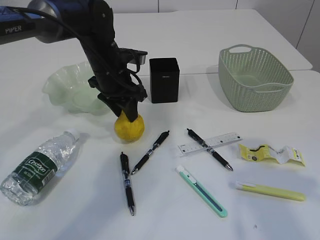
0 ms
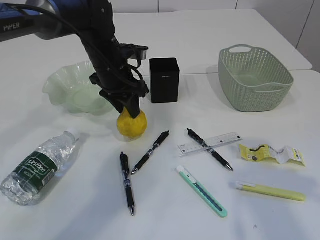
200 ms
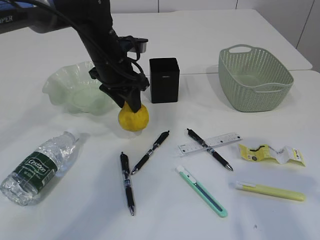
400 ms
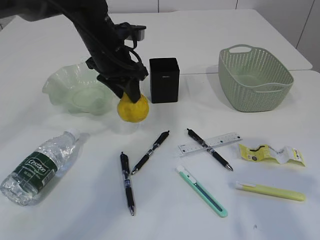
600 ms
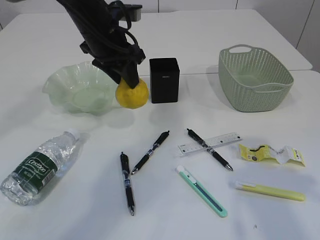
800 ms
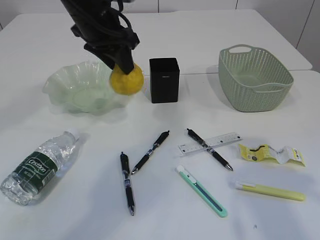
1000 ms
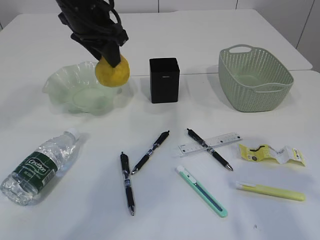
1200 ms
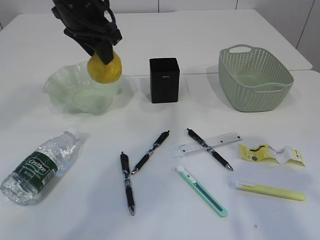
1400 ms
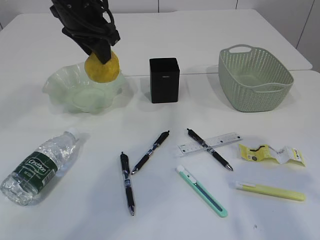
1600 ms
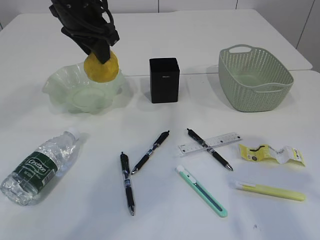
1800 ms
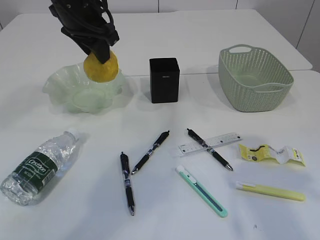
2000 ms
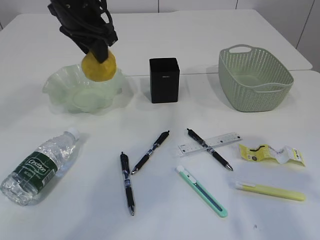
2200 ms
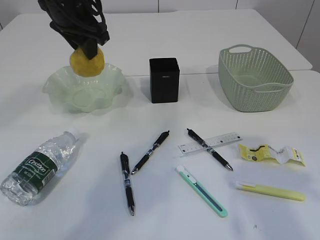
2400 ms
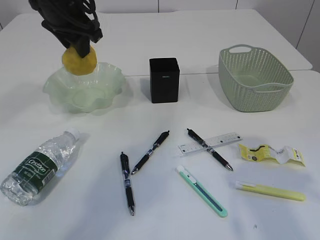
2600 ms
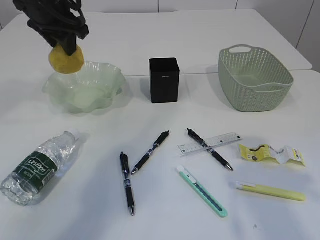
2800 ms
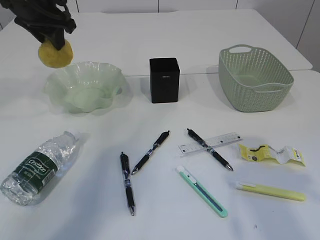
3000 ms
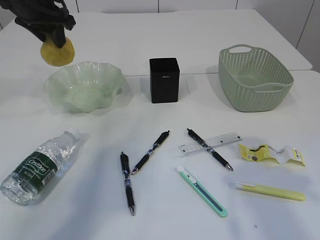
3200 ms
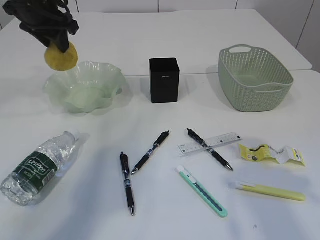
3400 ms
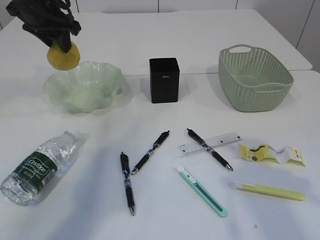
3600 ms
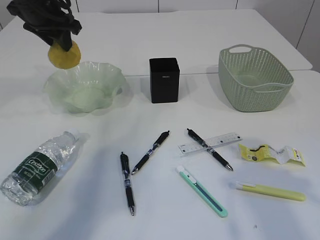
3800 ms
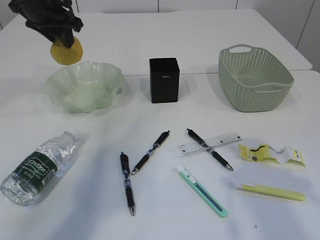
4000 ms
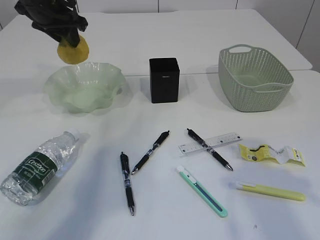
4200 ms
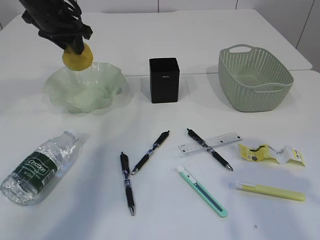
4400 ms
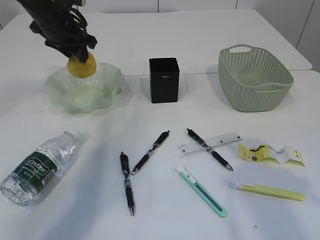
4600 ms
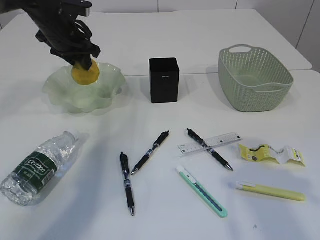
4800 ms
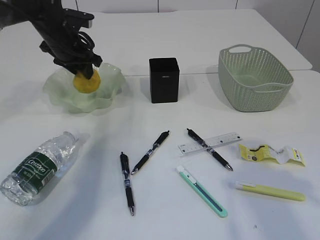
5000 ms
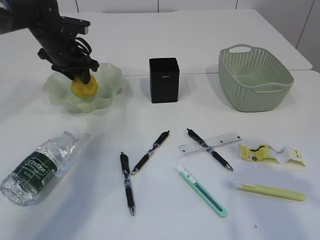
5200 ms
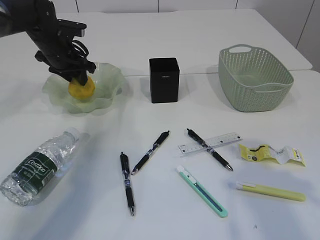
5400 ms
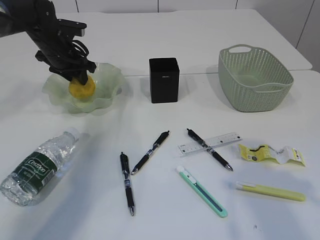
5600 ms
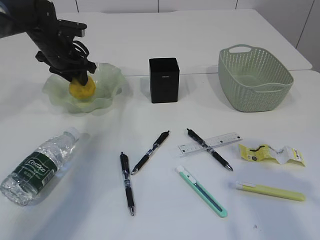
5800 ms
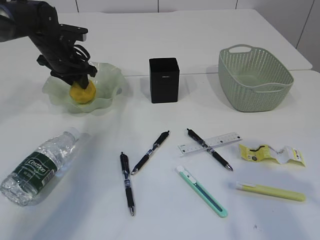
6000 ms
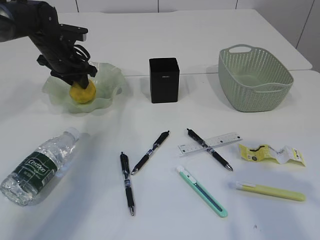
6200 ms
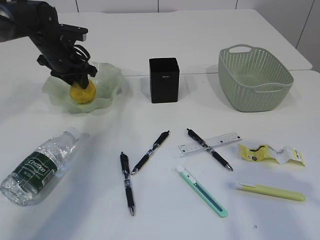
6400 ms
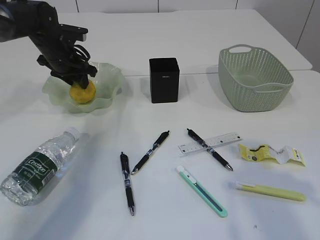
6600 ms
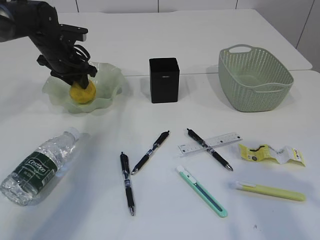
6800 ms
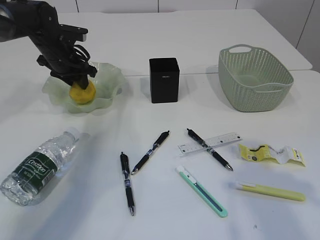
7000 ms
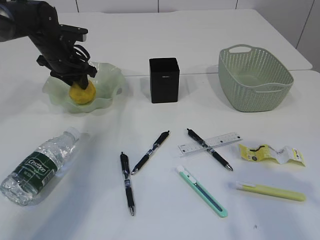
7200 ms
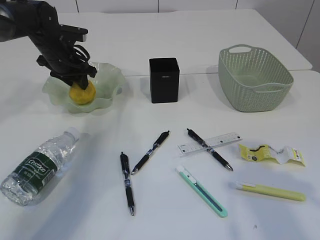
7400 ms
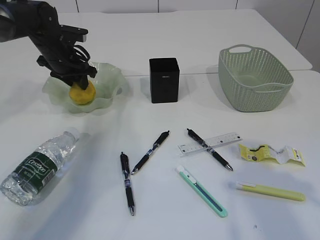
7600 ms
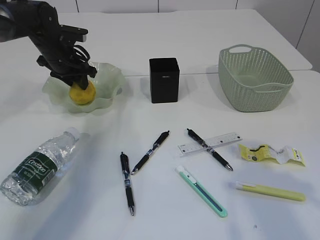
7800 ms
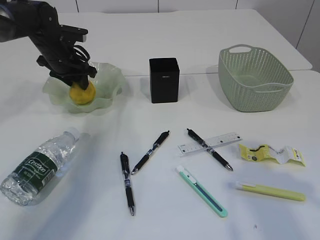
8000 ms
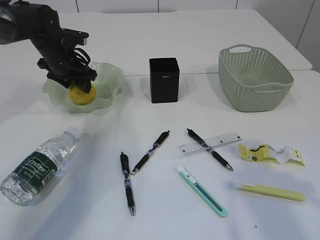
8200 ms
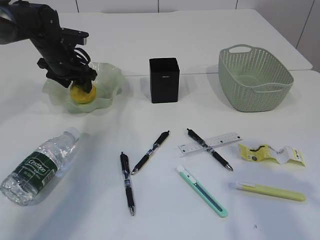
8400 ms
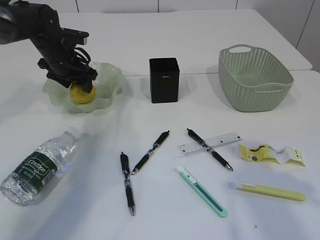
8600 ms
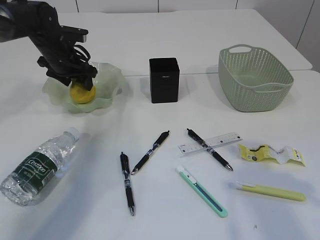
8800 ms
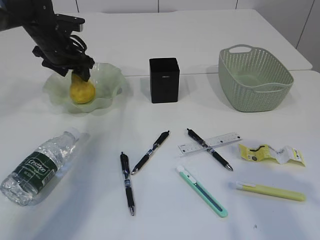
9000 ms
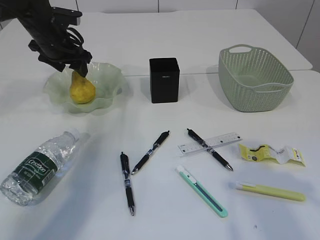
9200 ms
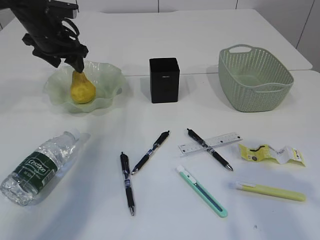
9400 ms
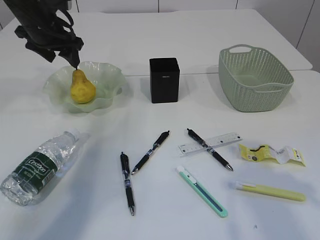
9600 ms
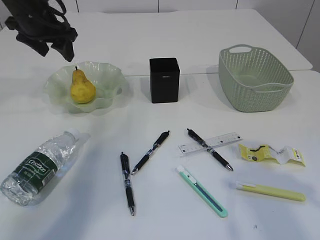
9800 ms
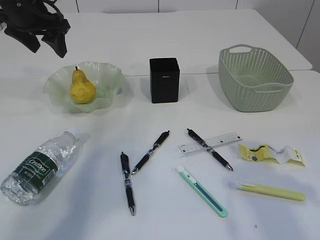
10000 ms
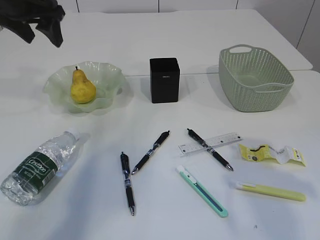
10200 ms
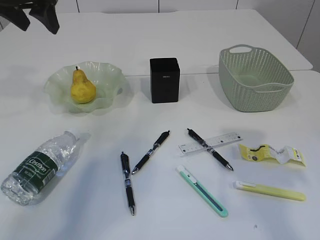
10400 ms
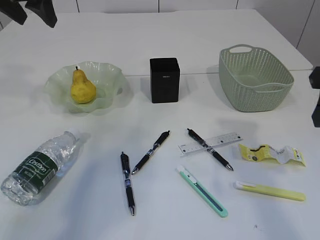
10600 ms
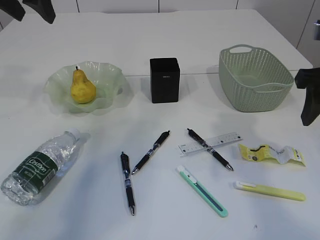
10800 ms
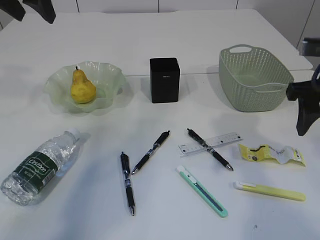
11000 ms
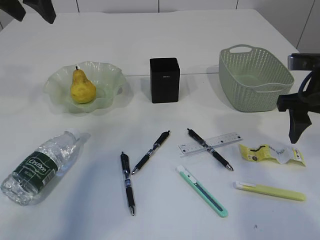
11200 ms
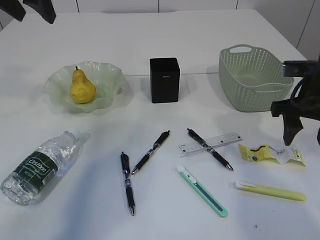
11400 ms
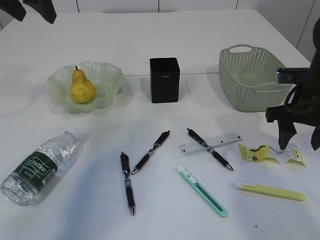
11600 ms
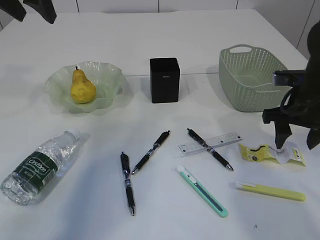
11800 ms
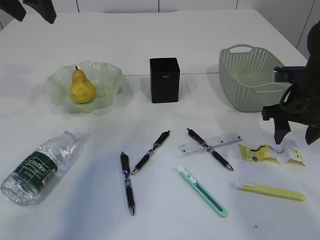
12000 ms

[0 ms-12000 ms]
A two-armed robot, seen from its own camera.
Step, 600 ms to 9600 ms: Place the pear in the plate.
0 ms to 1600 ms: The left gripper moves upward, roughly 15 cm.
1600 ms to 3000 ms: The left gripper is displaced to the left by roughly 10 cm.
3000 ms to 4400 ms: There are only small adjustments of the grippers.
4400 ms to 6000 ms: The left gripper goes about 10 cm downward.
6000 ms to 7600 ms: Both grippers stay put.
7600 ms to 9000 ms: The left gripper opens up.
9000 ms to 10400 ms: The left gripper shifts approximately 20 cm upward and backward.
10400 ms to 12000 ms: The right gripper moves forward and downward, some 20 cm.

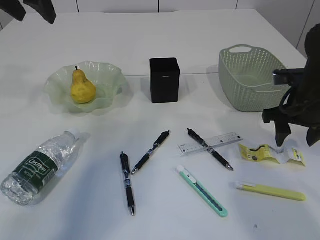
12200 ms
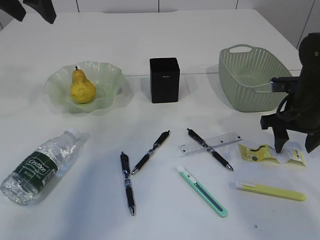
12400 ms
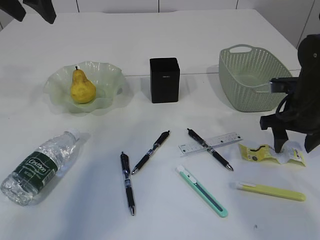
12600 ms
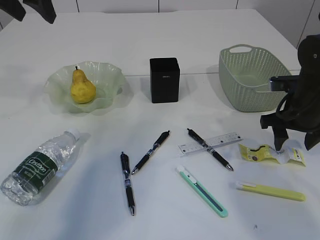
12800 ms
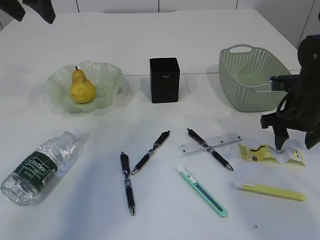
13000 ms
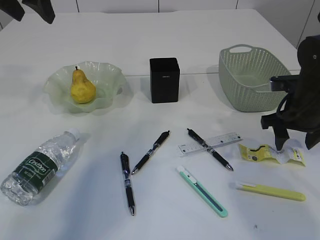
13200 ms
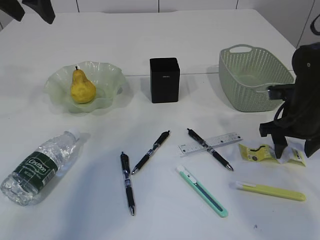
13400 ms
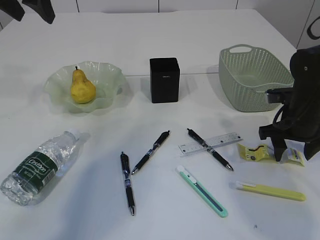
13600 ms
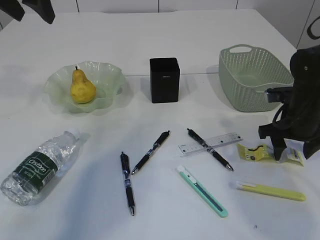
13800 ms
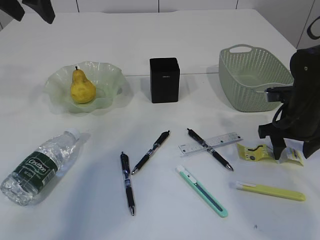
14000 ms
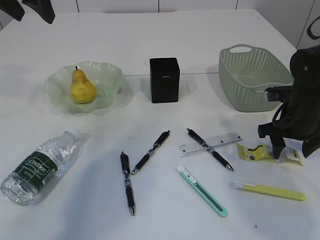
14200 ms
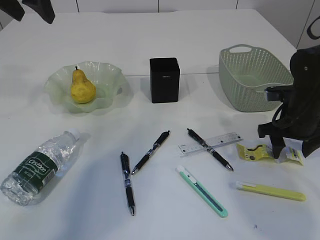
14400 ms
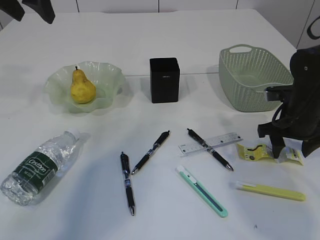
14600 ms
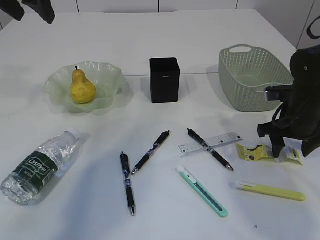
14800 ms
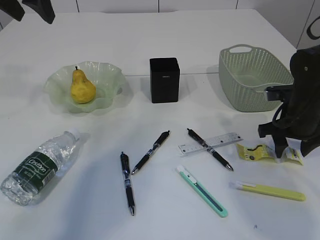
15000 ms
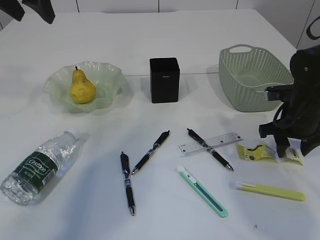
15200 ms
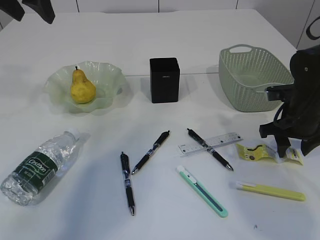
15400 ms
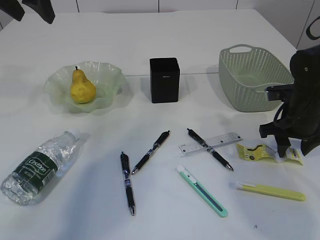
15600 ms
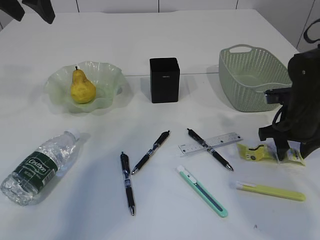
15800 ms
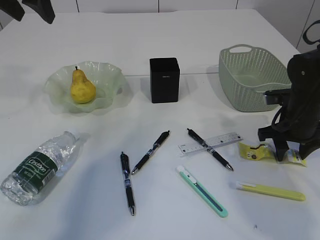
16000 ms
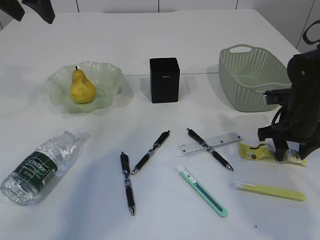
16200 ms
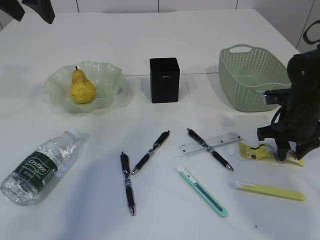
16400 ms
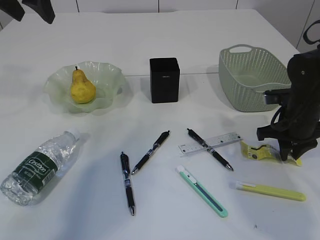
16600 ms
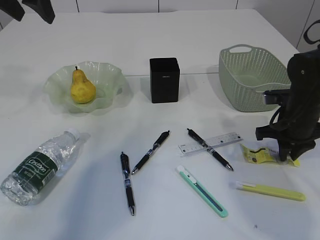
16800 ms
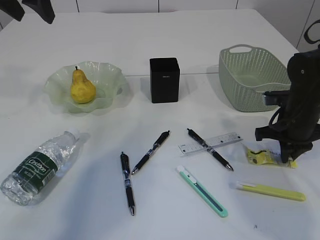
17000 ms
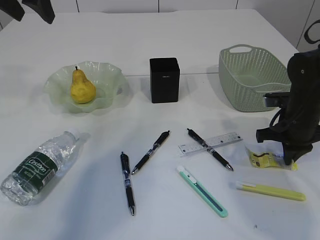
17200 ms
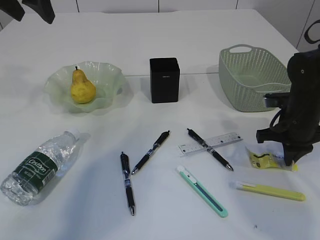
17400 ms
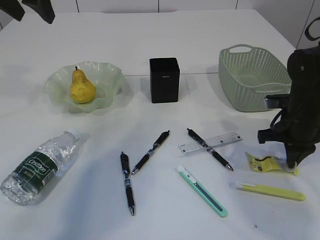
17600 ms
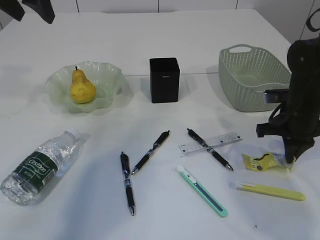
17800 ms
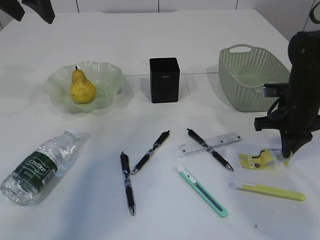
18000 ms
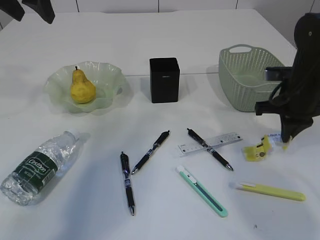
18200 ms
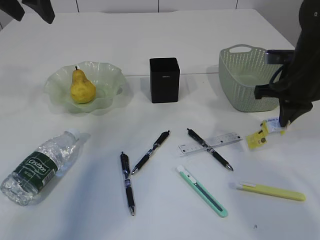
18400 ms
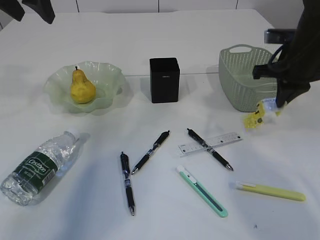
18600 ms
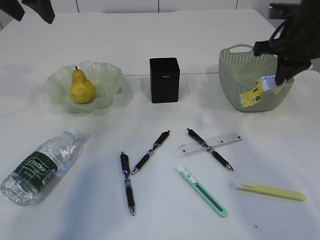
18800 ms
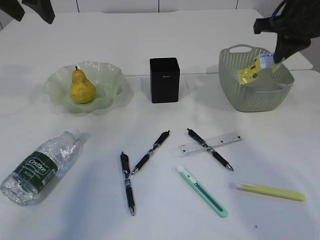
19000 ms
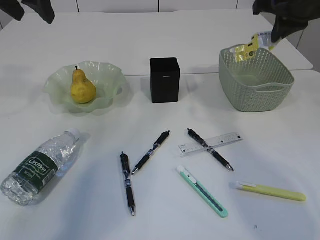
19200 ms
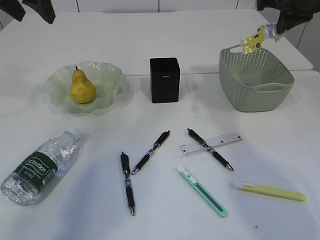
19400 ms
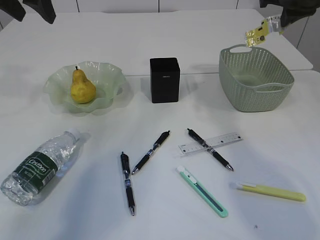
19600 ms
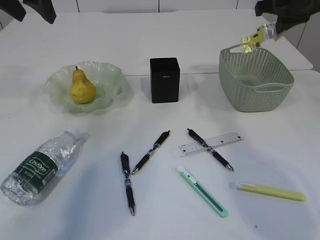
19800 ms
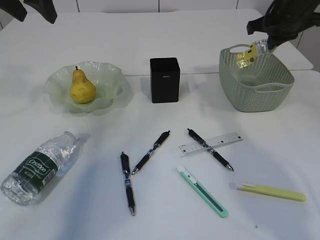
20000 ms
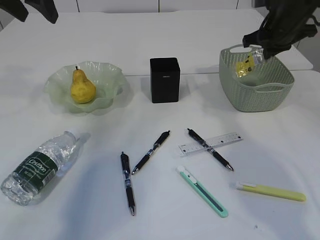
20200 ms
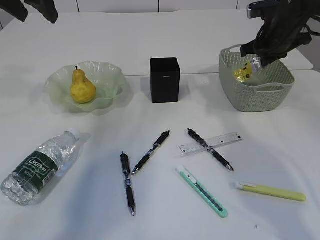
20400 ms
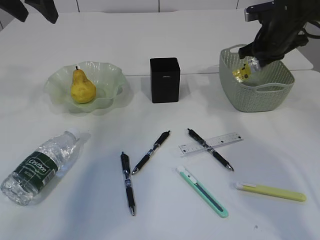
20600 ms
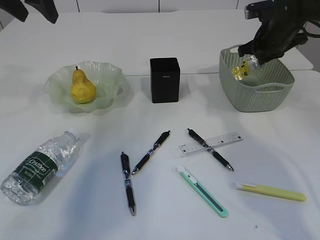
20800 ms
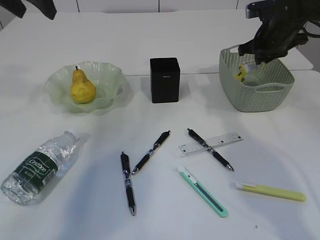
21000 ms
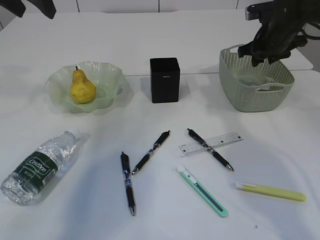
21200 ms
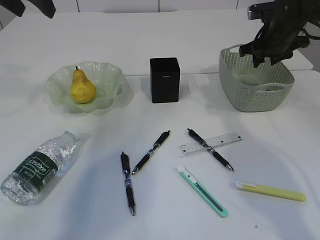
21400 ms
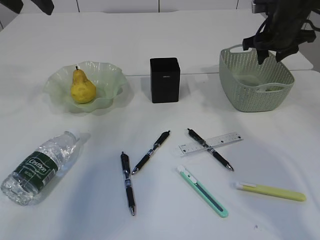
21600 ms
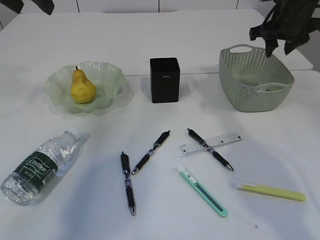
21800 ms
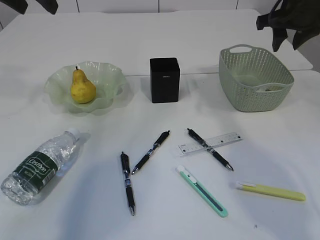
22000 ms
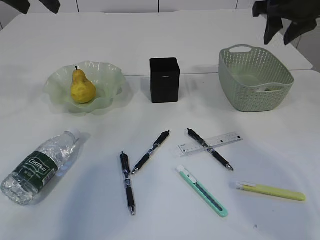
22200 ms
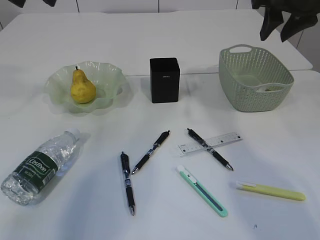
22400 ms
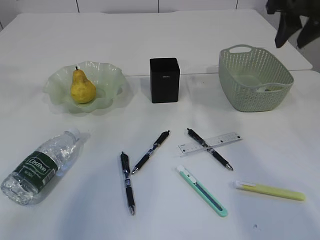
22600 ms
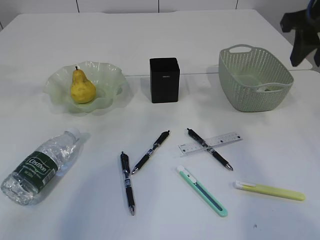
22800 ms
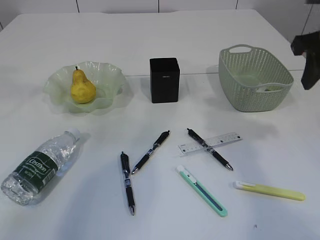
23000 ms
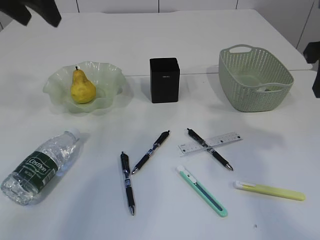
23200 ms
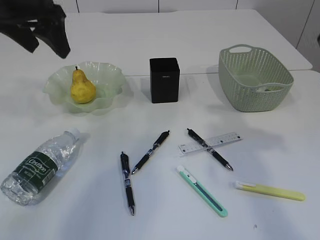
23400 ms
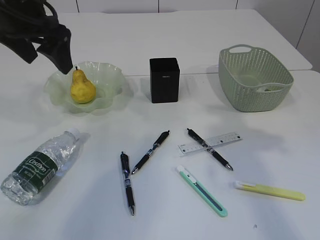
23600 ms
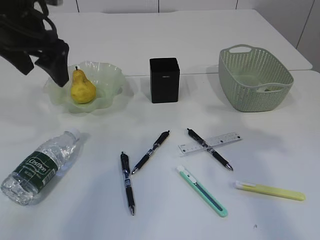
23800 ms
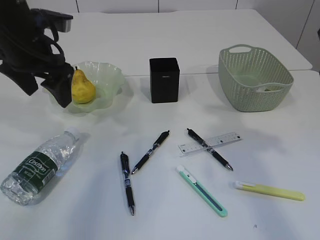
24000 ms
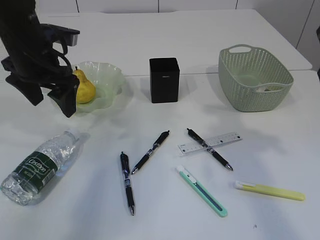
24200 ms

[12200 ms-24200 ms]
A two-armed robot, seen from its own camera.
Step, 12200 ms to 18400 ms: Pick up the plastic.
Step, 18600 ms to 21400 ms: Place the plastic in the basket.
12200 ms to 13800 ms: The grippers stay close to where they were, moving slightly.
13800 ms to 15200 ms: The two grippers keep their place.
15200 ms to 16600 ms: The right gripper closes its fingers.
16600 ms to 18200 ms: The right gripper is displaced upward by roughly 5 cm, and closes up.
18200 ms to 19800 ms: The right gripper travels upward and forward by about 15 cm.
19800 ms to 21200 ms: The right gripper heads downward and forward, covering about 10 cm, and opens its fingers.
21200 ms to 22600 ms: The right gripper is displaced upward and backward by roughly 15 cm.
22600 ms to 24200 ms: The right gripper moves backward, roughly 15 cm; the left gripper moves downward, approximately 15 cm.
